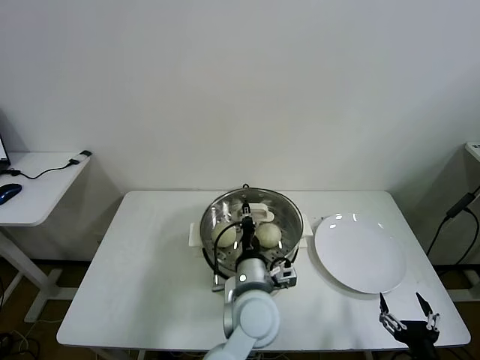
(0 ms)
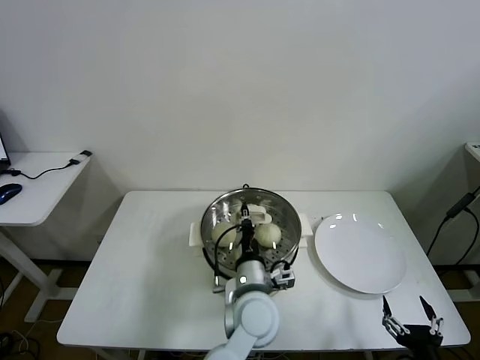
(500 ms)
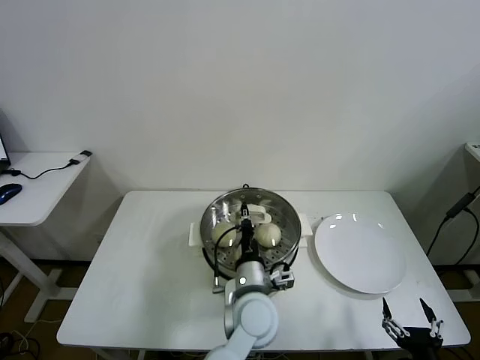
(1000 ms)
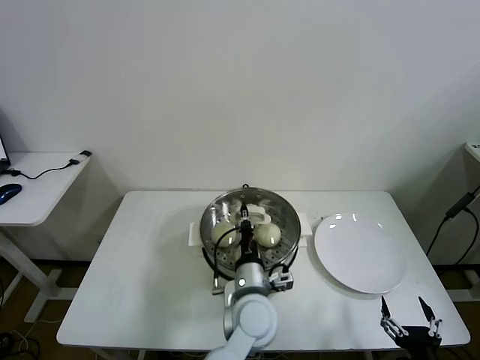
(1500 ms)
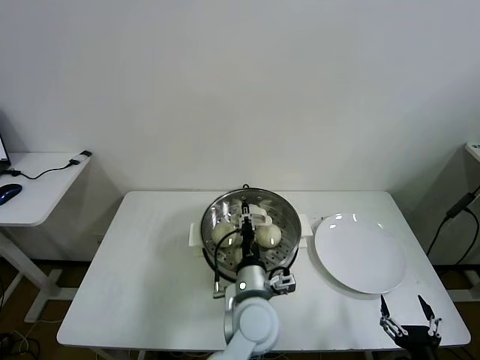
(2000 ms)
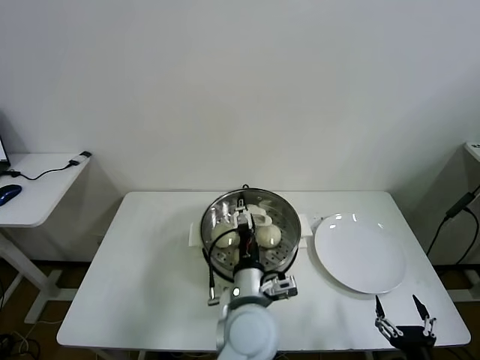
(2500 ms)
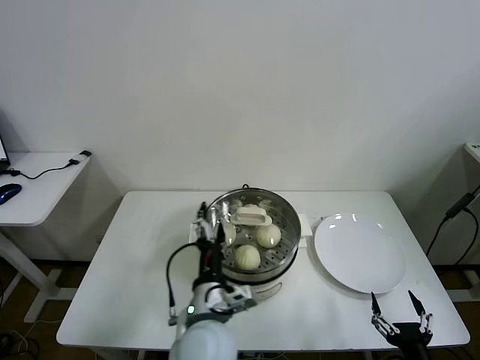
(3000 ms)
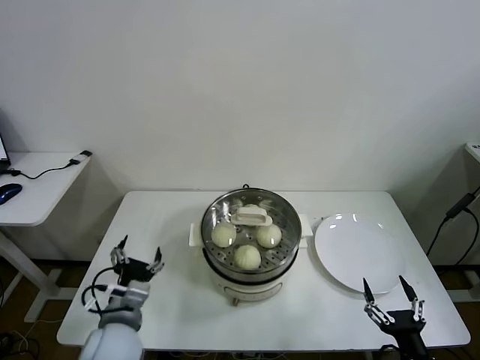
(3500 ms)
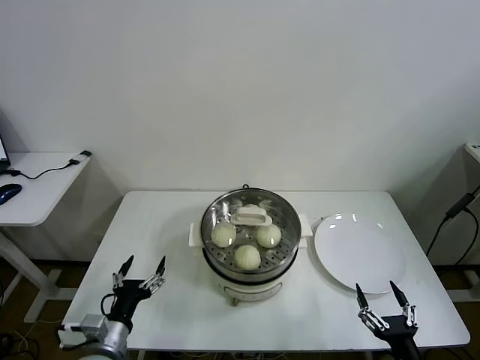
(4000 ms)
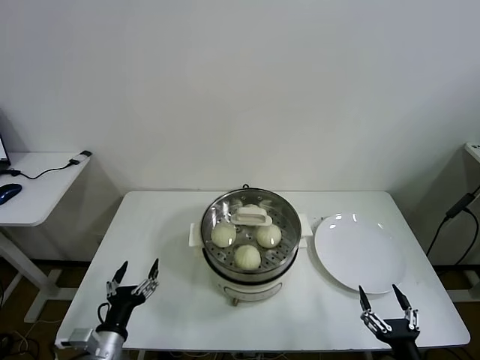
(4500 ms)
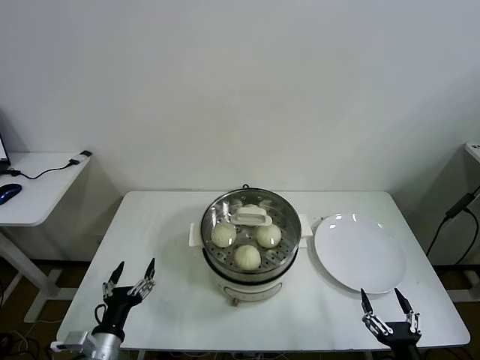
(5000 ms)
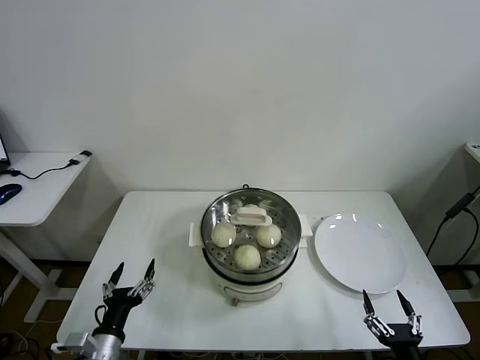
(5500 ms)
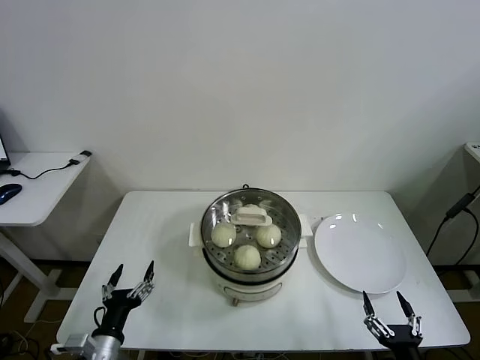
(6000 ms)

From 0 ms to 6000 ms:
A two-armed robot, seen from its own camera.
Task of the whole recording: take steamed baozi put them in steamer then cover it.
From 0 ms to 2000 ms: There are only small adjustments of the grippers.
From 2000 ms to 4000 ms: The left gripper heads to the left, covering roughly 30 cm, and opens.
From 4000 ms to 6000 ms: The grippers stay close to where they were, moving slightly.
